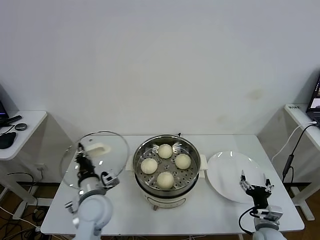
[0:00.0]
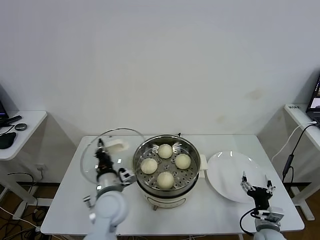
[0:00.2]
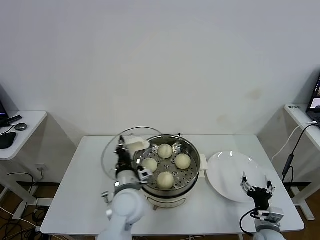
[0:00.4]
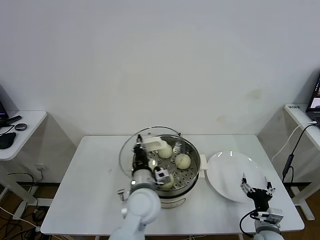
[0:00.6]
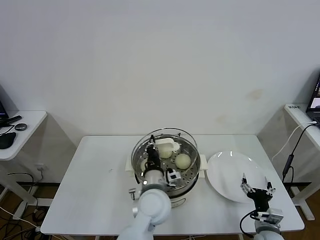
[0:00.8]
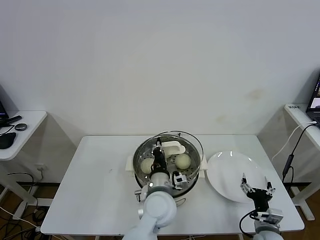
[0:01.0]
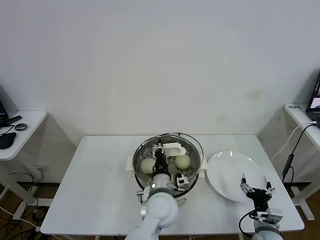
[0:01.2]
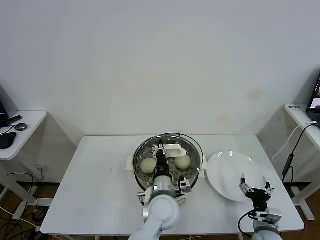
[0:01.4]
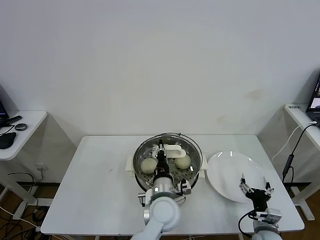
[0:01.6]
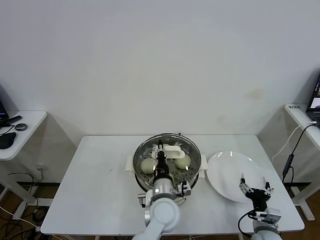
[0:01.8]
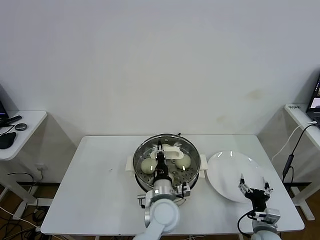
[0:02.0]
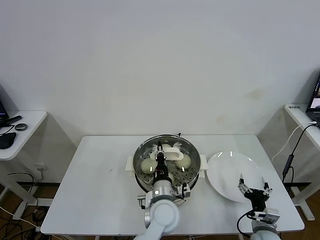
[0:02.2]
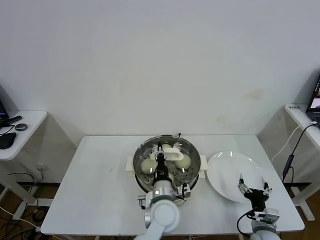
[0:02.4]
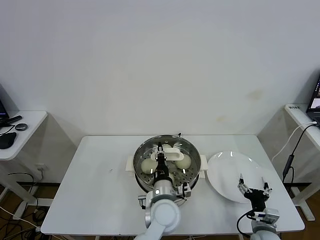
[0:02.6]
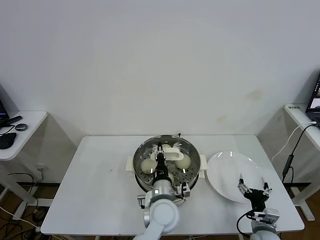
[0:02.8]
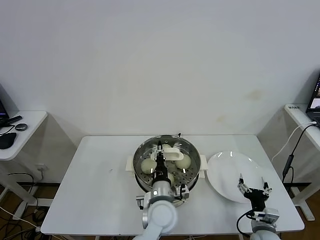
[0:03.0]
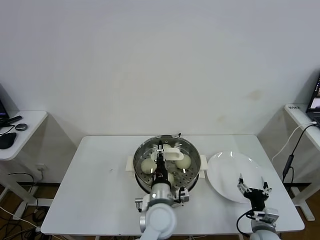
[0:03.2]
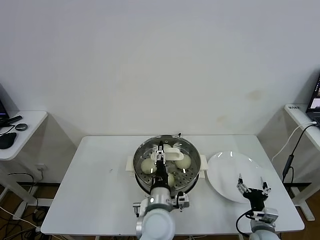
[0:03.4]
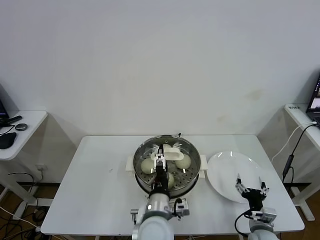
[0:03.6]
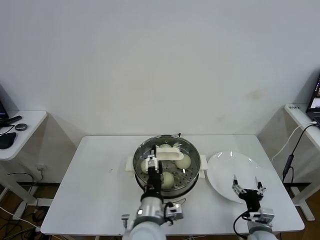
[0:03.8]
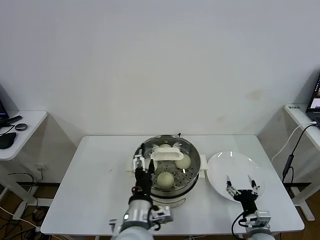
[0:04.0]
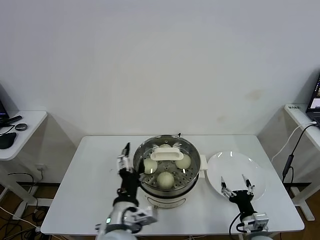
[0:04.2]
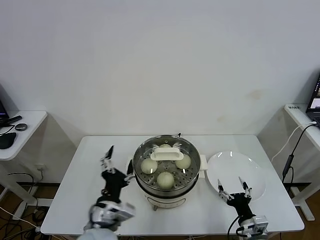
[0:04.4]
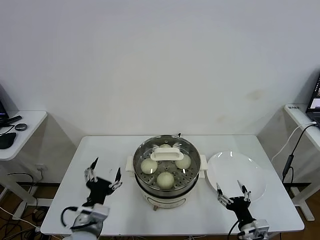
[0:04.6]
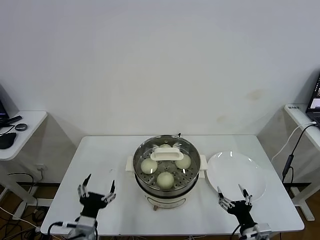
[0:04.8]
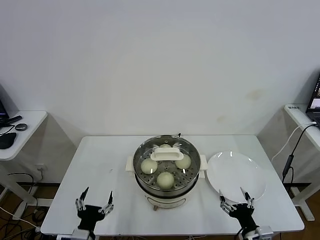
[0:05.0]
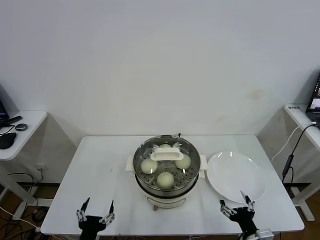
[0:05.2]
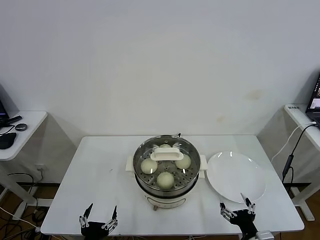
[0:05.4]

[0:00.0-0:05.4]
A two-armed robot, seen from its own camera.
Task of the whole recording: take steamed baozi put them in steamer.
Step, 0:00.0 to 0:03.6: Place the pot lid on the steamer with left gripper.
0:00.0 to 0:01.4: The left gripper is displaced to the right by roughly 20 cm.
0:01.4 to 0:02.8: There are only small adjustments of the grippers.
0:02.8 to 0:04.0: The left gripper moves backward, upward and to the left, about 15 cm, and opens its fingers.
0:04.0 to 0:05.4: The right gripper goes some 10 cm backward. Meanwhile the left gripper moves to the left, downward and backward, some 20 cm.
